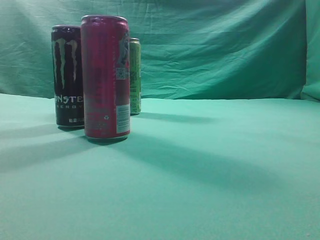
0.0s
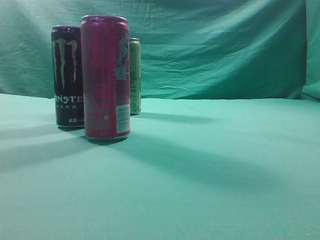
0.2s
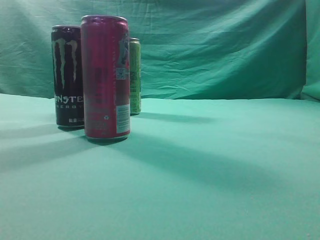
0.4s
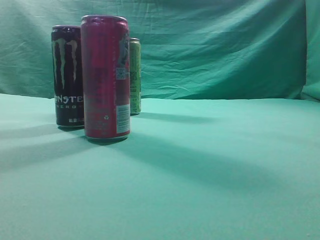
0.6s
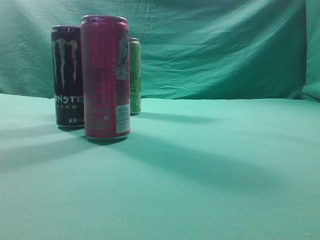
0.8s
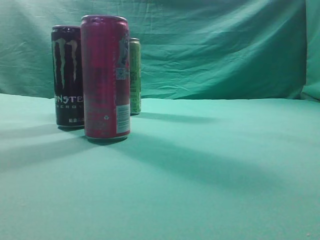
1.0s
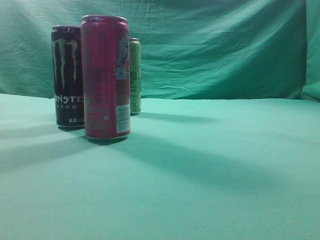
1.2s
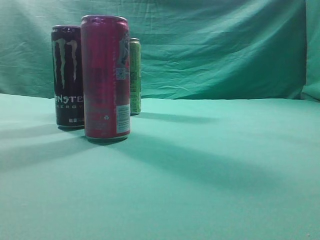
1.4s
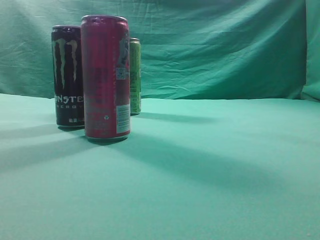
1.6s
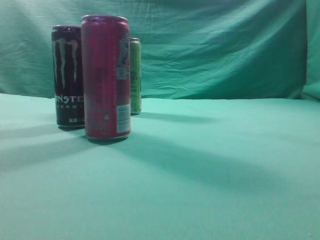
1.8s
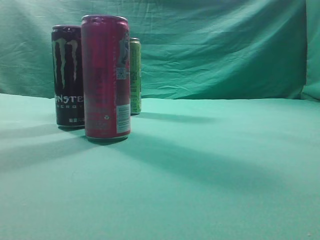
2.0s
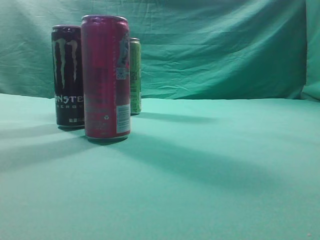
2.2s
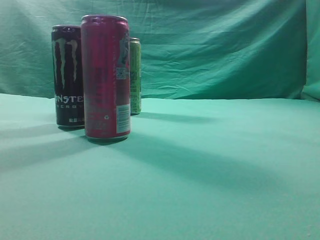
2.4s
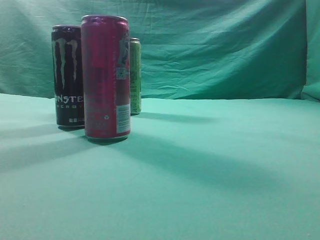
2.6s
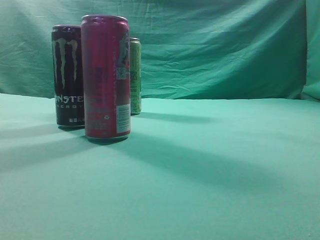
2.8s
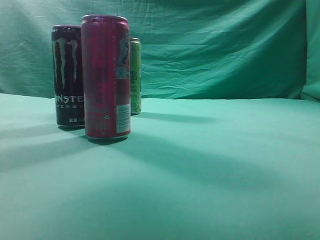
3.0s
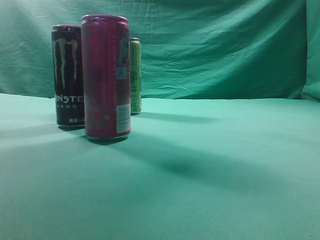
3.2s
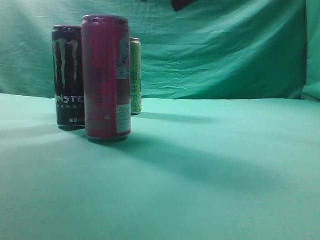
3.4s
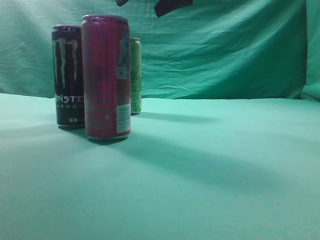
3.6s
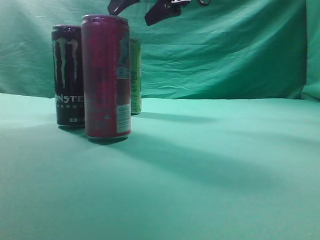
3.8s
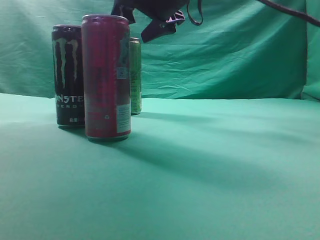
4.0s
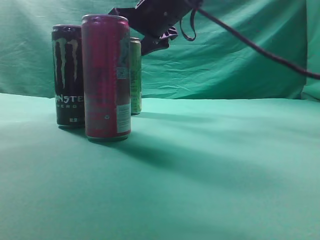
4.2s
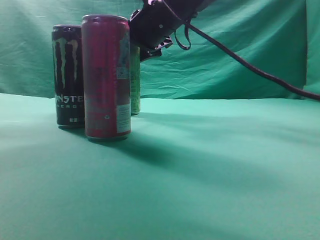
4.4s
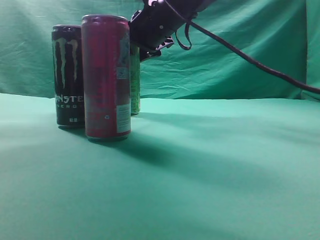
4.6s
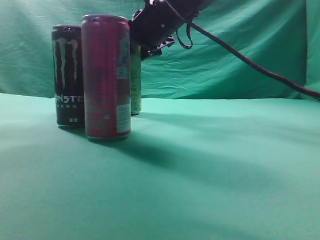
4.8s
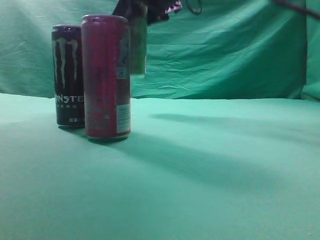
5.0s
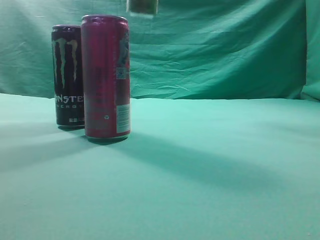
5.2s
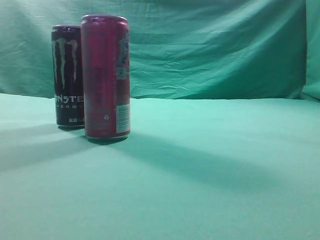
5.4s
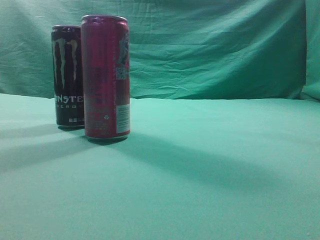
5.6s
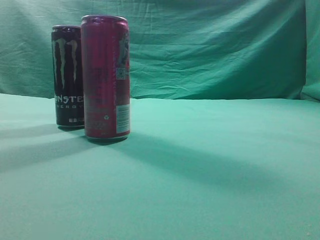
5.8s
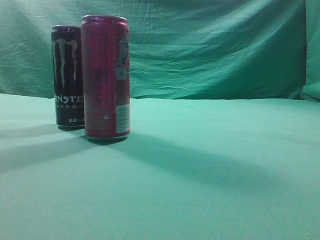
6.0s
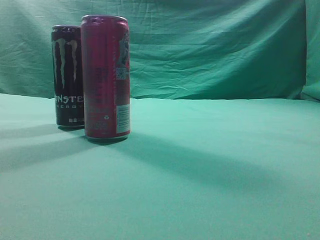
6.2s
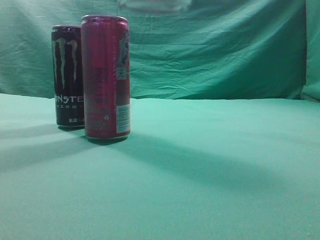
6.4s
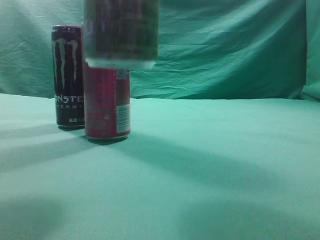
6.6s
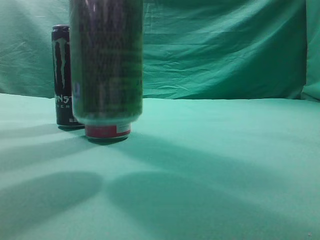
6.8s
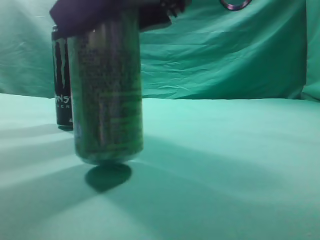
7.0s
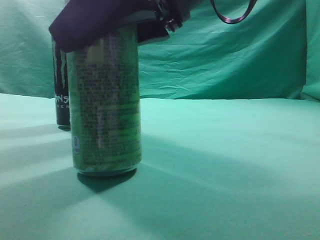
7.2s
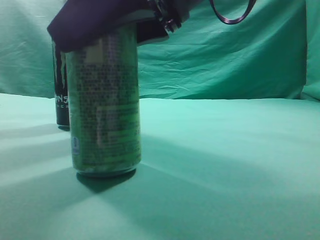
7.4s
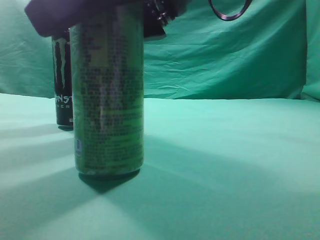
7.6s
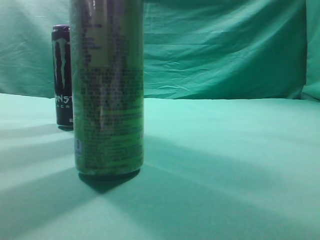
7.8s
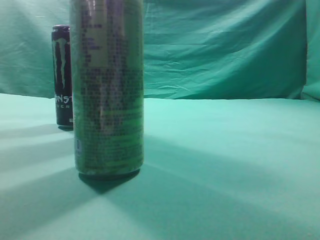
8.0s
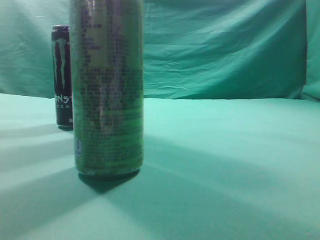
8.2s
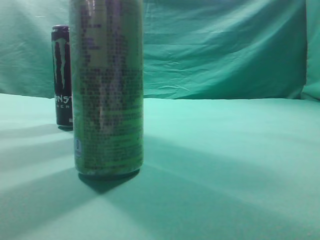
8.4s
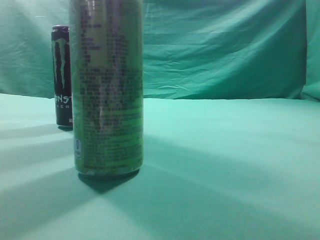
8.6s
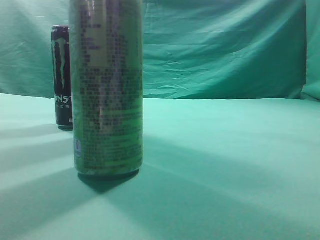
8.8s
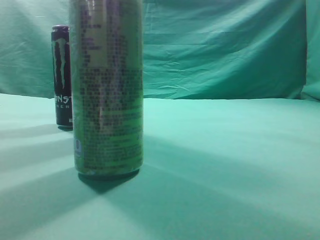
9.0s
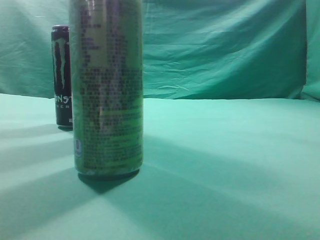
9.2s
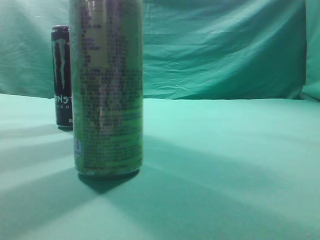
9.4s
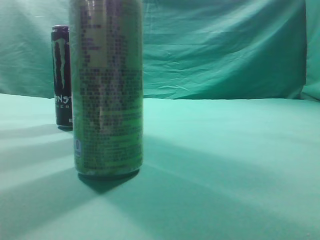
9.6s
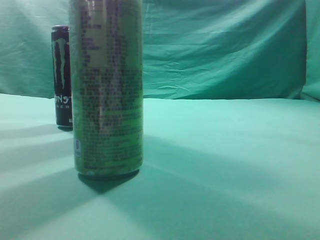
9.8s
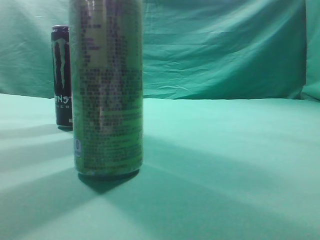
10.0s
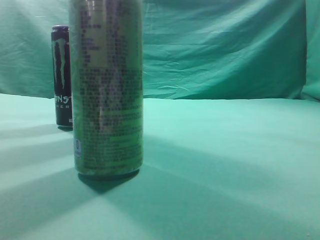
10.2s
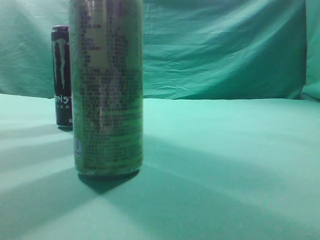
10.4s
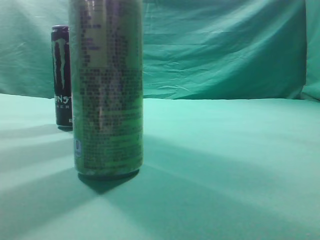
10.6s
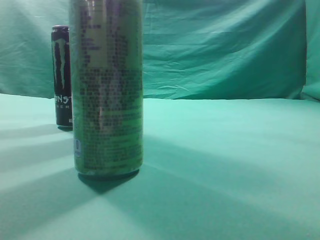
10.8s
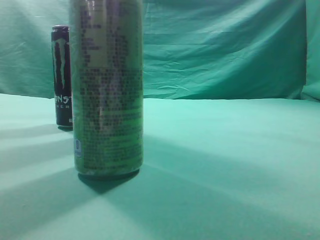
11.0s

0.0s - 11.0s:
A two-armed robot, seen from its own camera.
Task of the whole recording: move one drink among three beverages.
Step, 0.0s - 4.8s: Grasp the beverage bottle placed at the back of the desk.
Step, 5.0s - 7.8s: Place the beverage bottle to the front of the table.
1.6s - 3.2s: The right gripper travels forward and to the left by some 30 cm, and opens.
3.2s - 4.8s: The right gripper travels forward, to the left and downward by some 20 cm.
4.8s - 6.2s: The right gripper heads backward, upward and to the right, covering about 30 cm.
6.2s - 7.8s: The right gripper goes approximately 15 cm downward and to the left.
7.8s - 9.4s: The right gripper goes some 25 cm to the right, upward and backward, and closes up.
